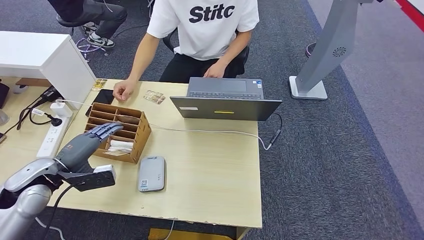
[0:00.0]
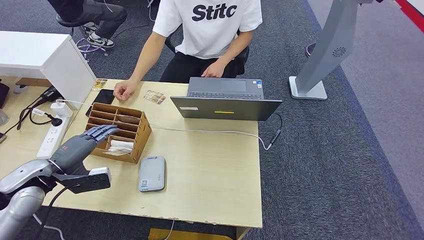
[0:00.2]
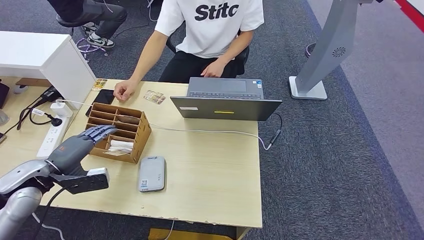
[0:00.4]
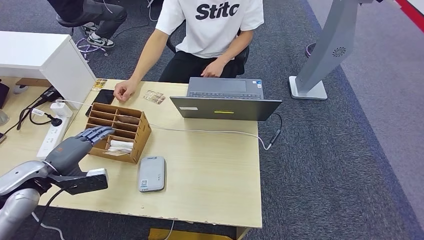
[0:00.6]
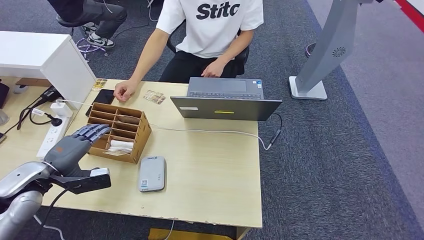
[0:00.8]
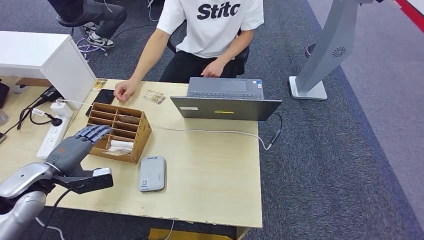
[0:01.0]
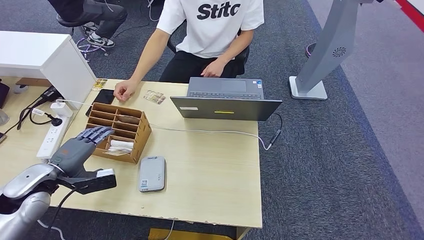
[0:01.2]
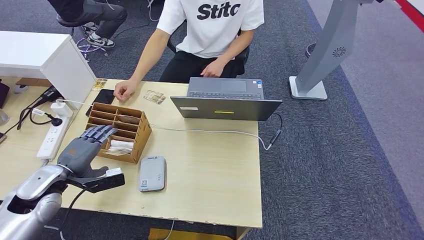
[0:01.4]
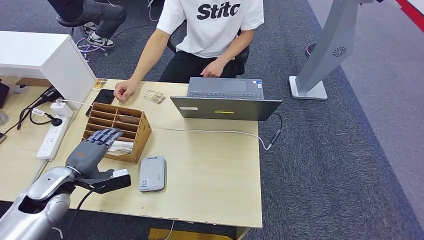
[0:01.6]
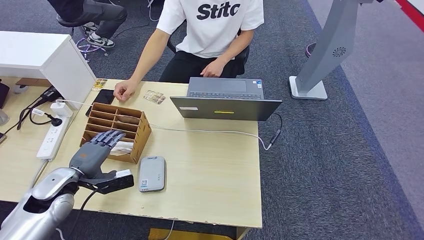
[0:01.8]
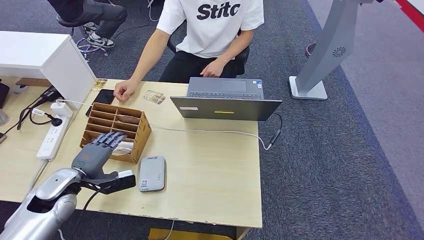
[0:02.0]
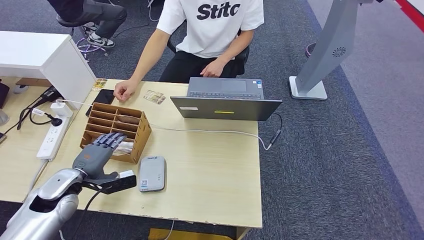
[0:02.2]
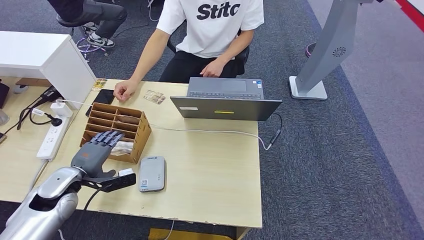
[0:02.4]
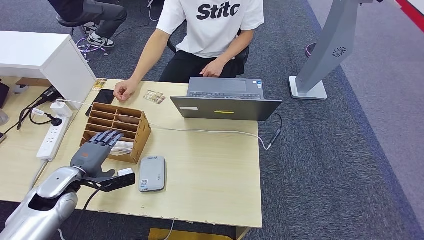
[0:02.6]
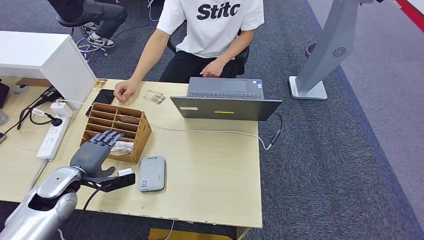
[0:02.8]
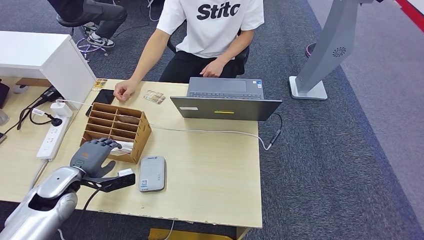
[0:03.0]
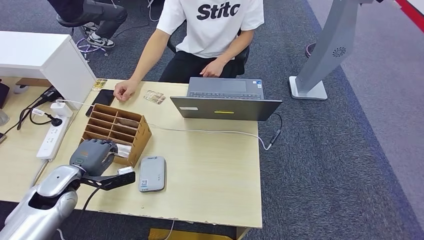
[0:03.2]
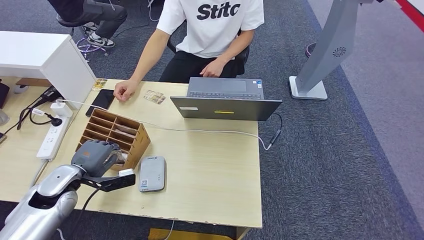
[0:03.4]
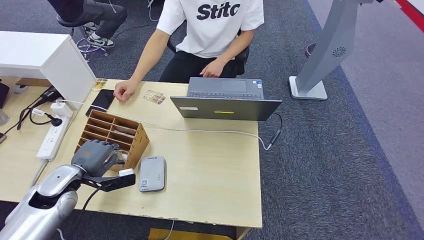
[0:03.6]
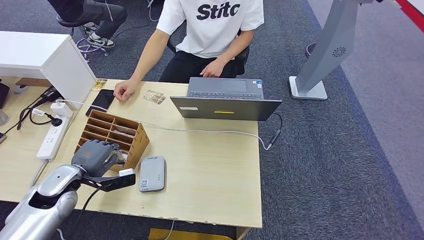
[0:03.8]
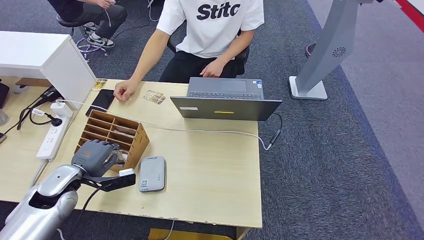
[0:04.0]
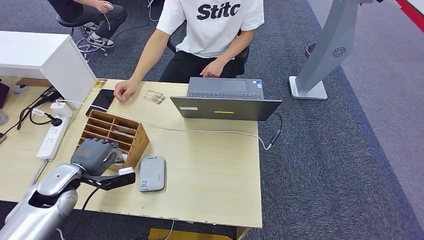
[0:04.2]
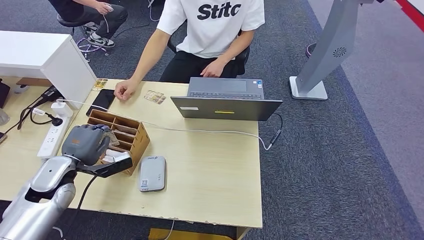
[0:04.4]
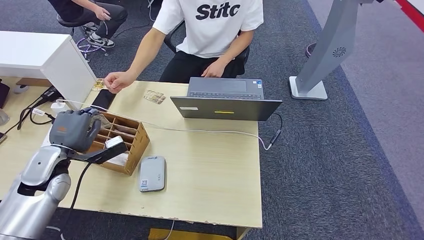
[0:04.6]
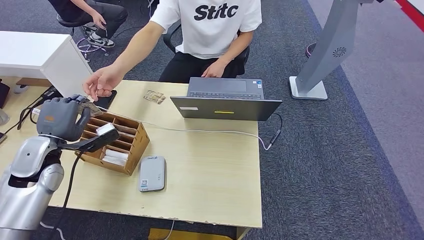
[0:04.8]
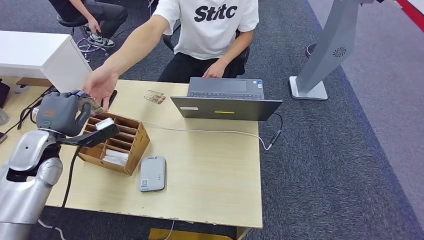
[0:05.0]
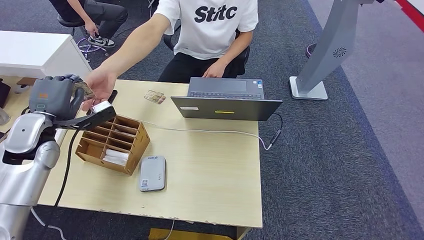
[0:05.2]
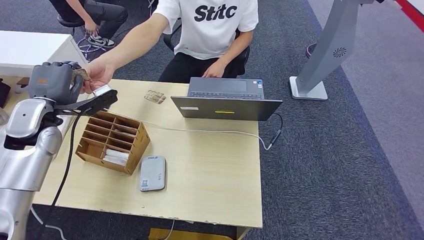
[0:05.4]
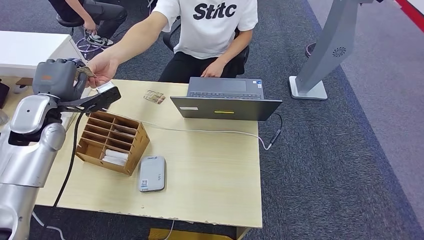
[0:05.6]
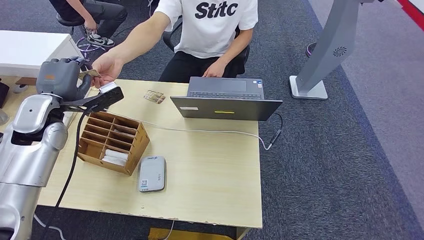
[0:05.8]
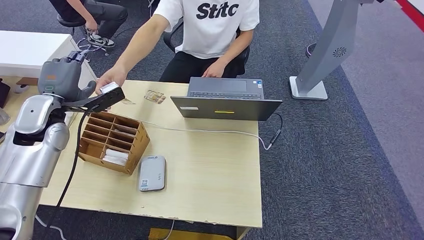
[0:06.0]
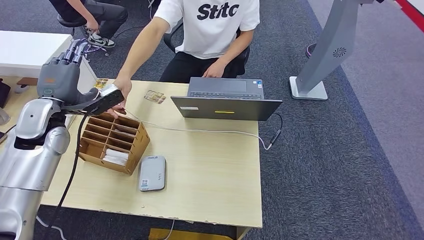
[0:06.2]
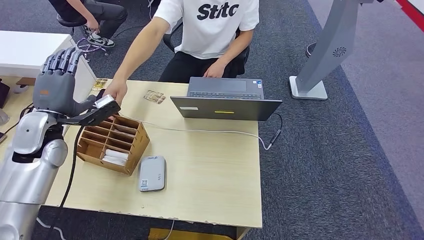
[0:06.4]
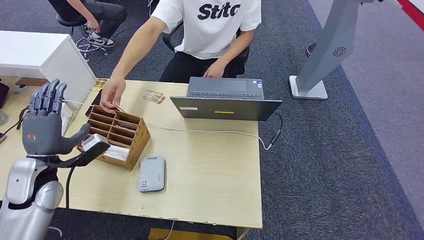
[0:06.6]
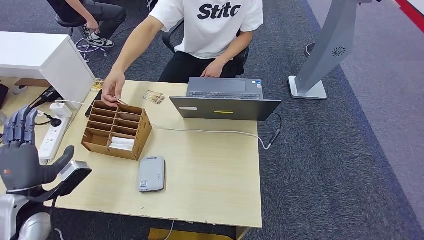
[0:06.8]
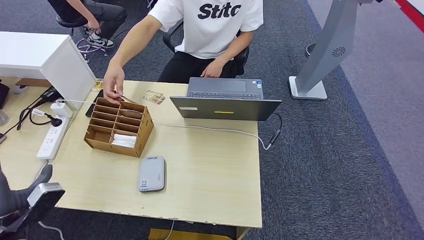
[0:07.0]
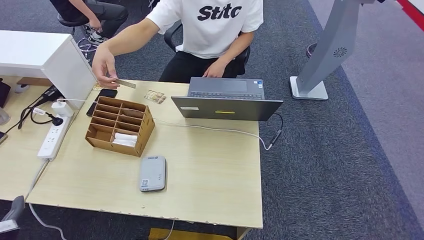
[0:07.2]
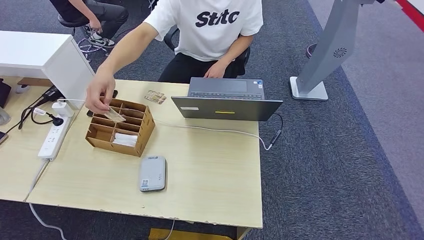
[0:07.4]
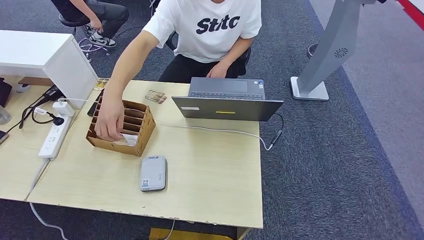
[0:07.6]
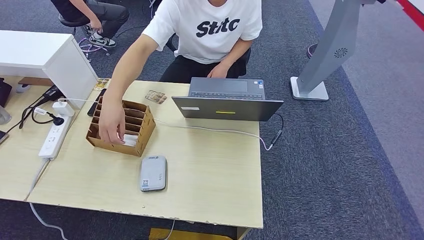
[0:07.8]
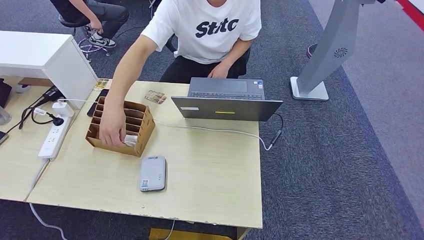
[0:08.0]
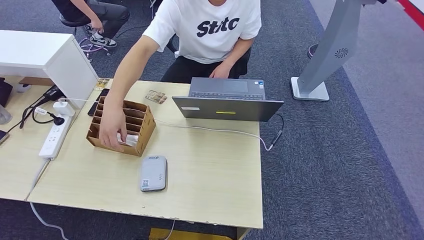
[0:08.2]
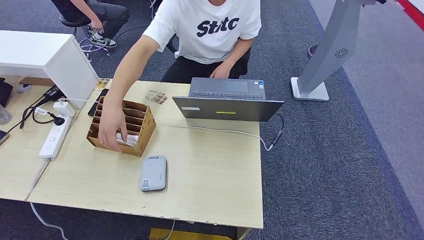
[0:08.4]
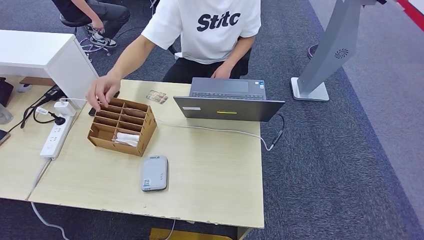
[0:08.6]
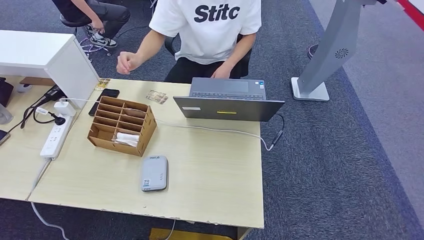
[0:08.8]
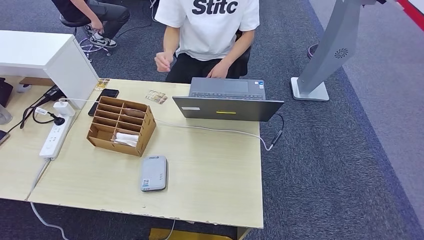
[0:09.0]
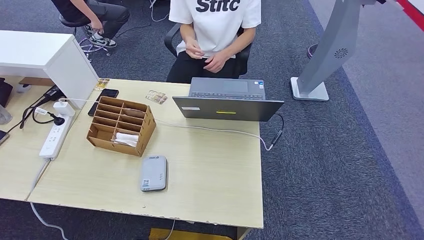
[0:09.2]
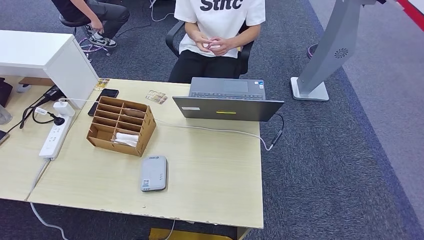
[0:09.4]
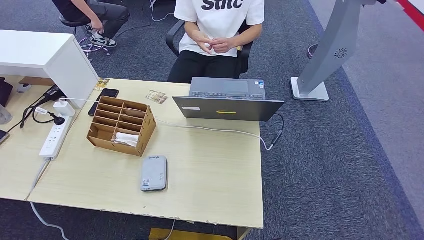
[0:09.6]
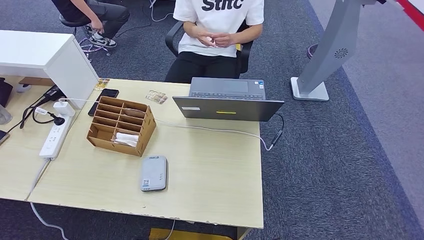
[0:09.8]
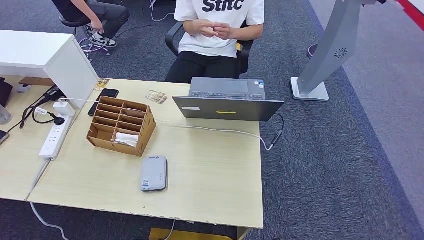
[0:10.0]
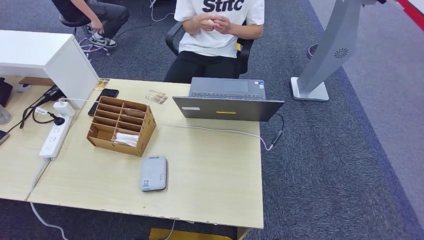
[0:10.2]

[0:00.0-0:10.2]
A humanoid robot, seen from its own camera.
Step, 0:00.0 to 0:05.4: Pick up the room key from the key card box.
Step, 0:05.6 to 0:10.2: Hand the room key to the person.
0:00.0 to 0:01.4: The hands stay close to where they were, moving slightly.
0:01.4 to 0:04.4: There are only small adjustments of the hands.
0:04.4 to 0:05.8: The left hand heads upward and forward, covering approximately 15 cm.
0:05.8 to 0:07.2: The left hand moves backward, downward and to the left, approximately 35 cm.
0:07.2 to 0:08.8: The left hand is displaced downward and backward by approximately 30 cm.
0:08.8 to 0:10.2: The left hand is displaced to the right by roughly 10 cm.
